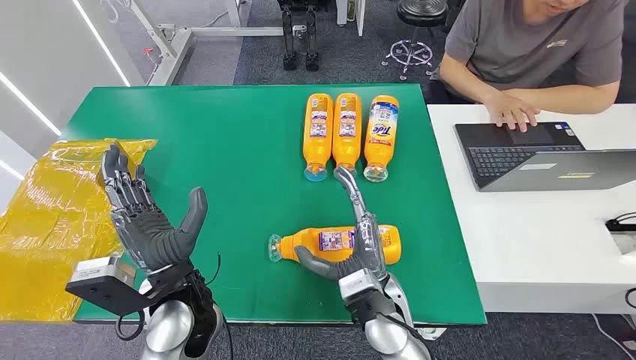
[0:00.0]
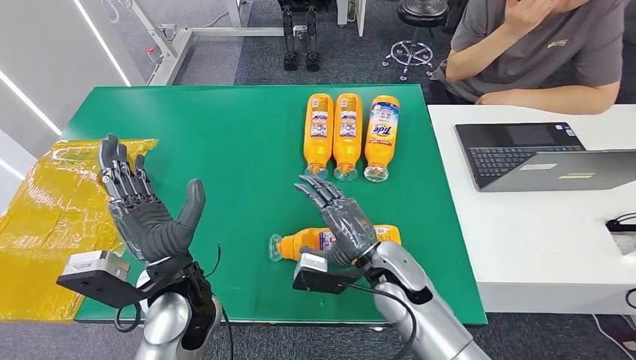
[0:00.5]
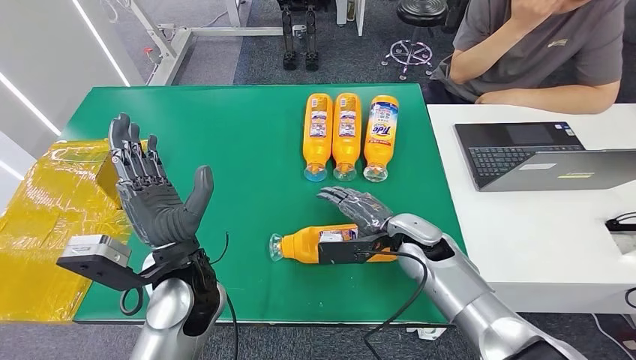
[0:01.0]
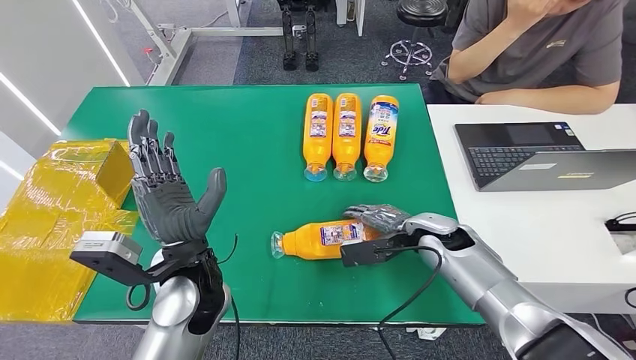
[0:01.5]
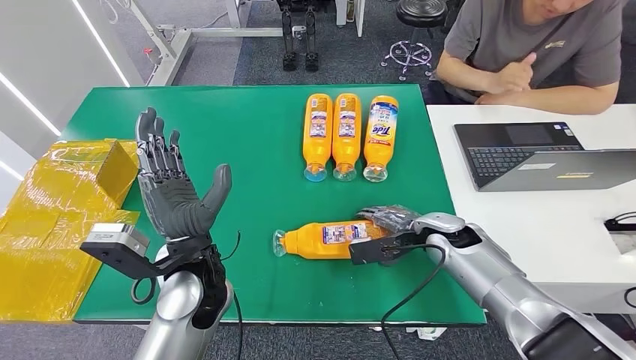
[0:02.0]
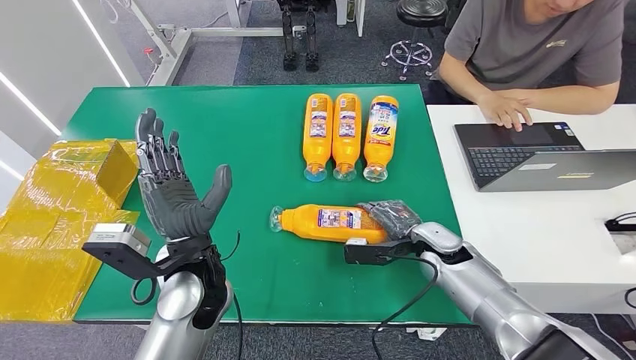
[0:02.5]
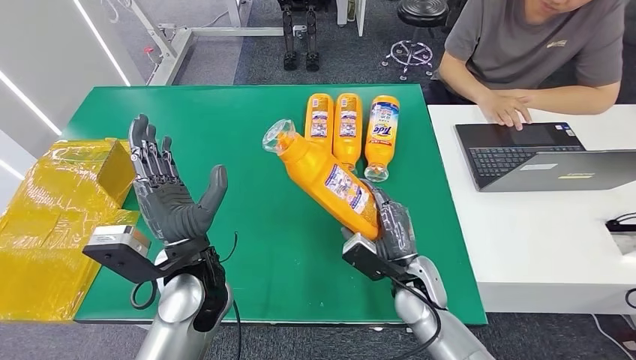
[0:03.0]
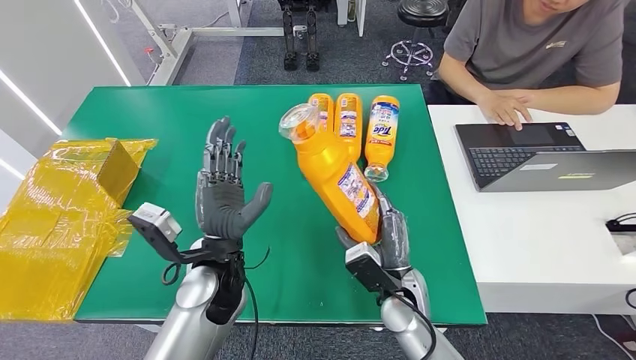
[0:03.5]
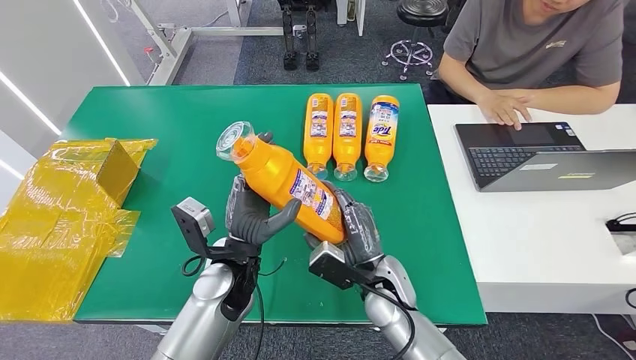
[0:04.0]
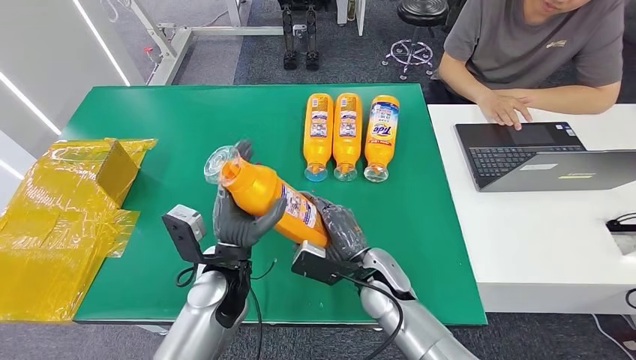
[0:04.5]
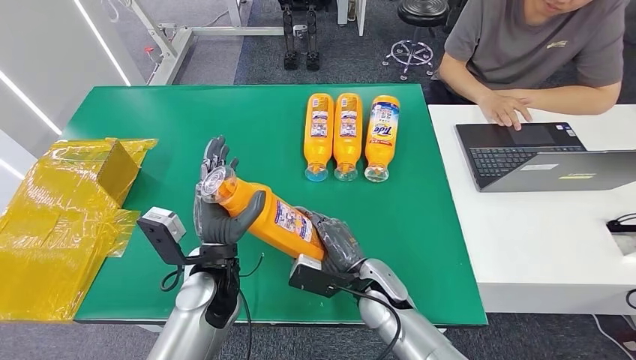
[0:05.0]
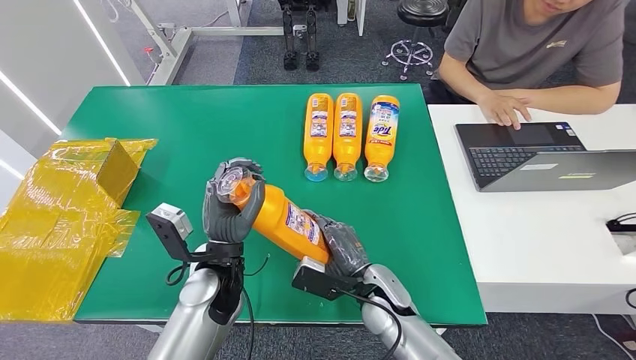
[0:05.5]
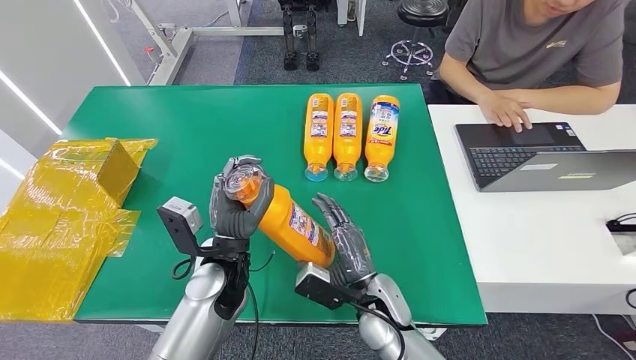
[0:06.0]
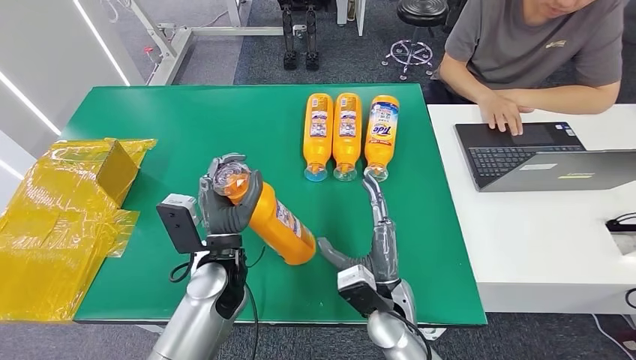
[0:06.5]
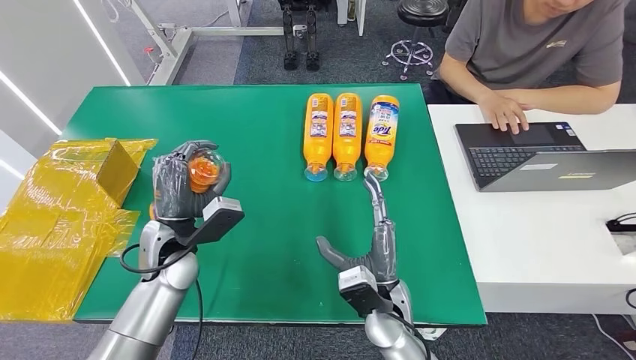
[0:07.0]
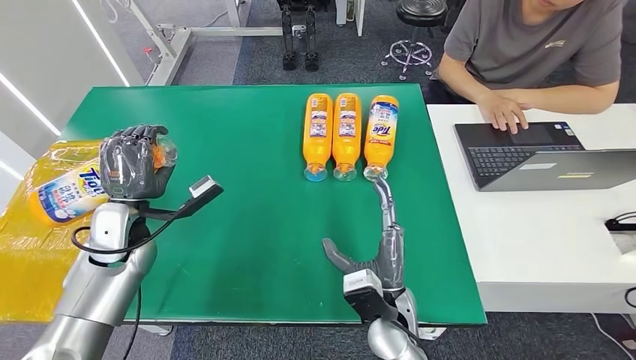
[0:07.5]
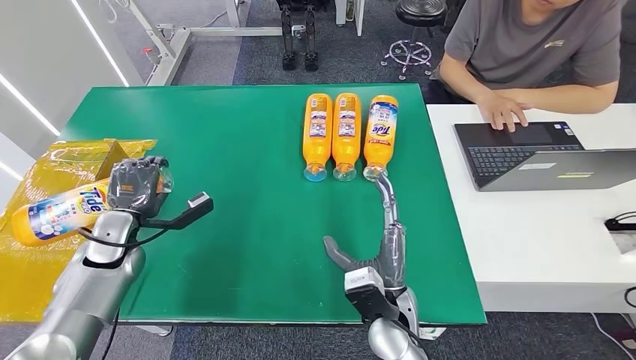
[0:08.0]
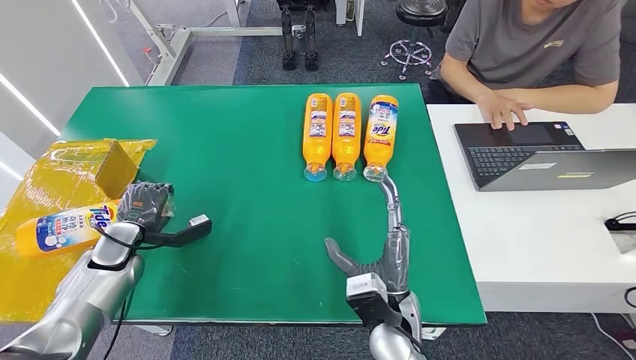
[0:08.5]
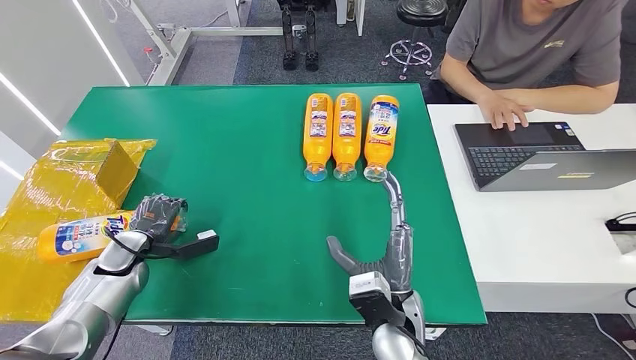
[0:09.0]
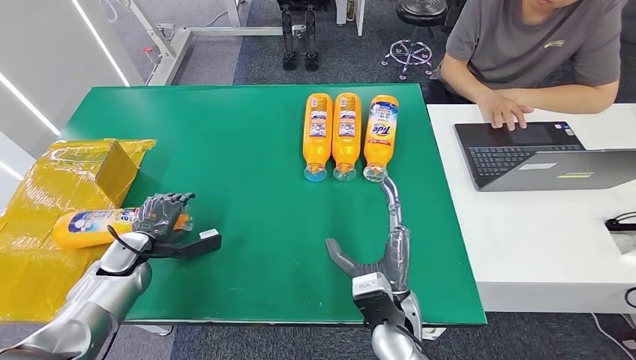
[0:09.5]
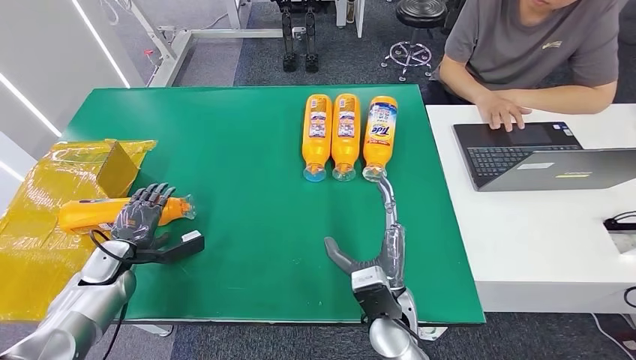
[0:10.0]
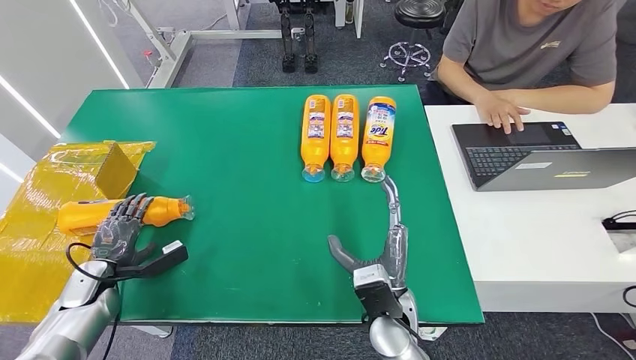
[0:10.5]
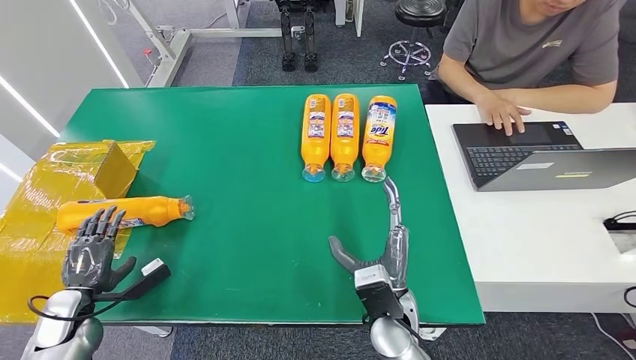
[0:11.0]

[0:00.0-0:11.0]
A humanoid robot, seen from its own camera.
Step, 0:00.0 to 0:03.5: Pick up the bottle from the table.
Step, 0:04.0 to 0:11.0: Turn the bottle to the front side.
0:05.5 to 0:07.5: The left hand moves to the left and forward, some 20 cm. The right hand shifts by some 5 cm.
0:07.5 to 0:09.0: The left hand heads downward and to the left, covering some 15 cm.
0:09.0 to 0:11.0: The left hand travels backward and to the left by approximately 10 cm.
